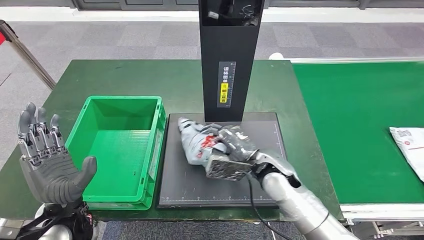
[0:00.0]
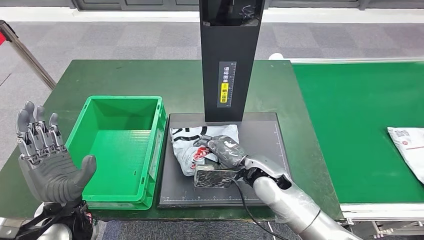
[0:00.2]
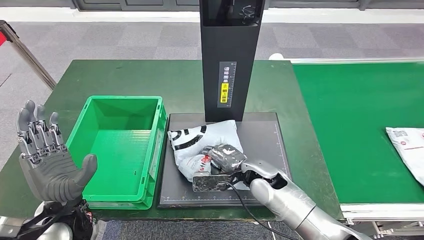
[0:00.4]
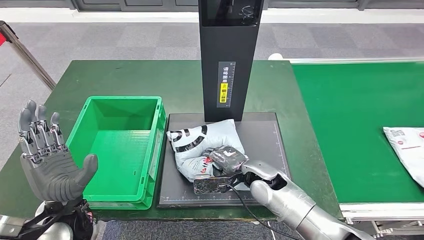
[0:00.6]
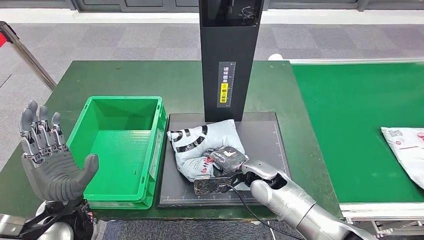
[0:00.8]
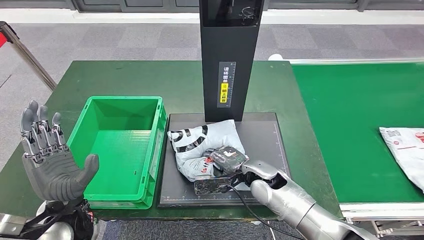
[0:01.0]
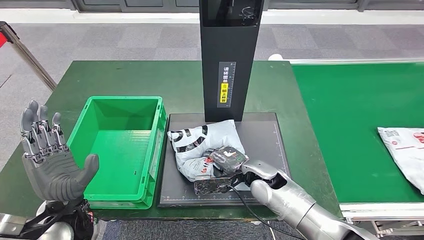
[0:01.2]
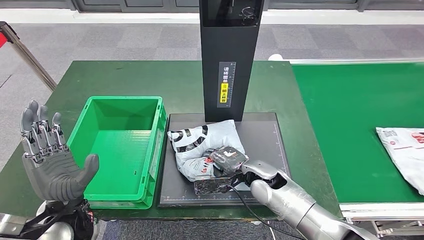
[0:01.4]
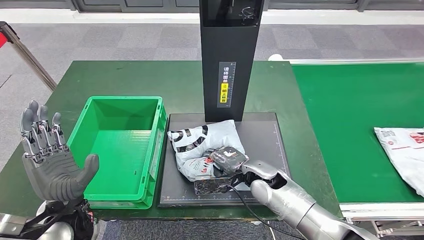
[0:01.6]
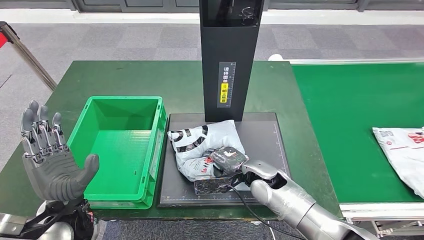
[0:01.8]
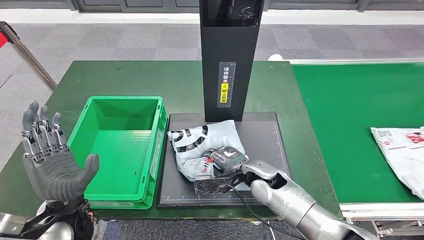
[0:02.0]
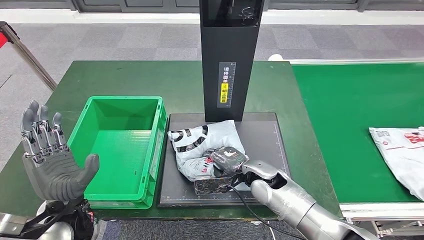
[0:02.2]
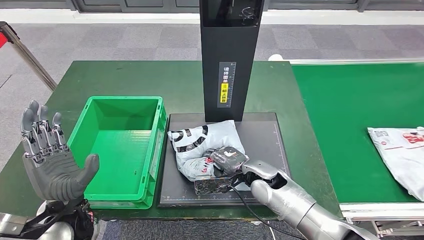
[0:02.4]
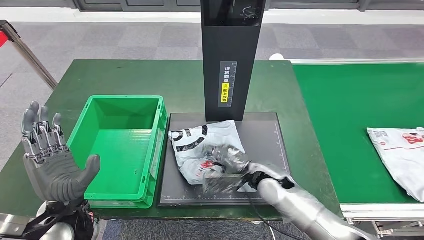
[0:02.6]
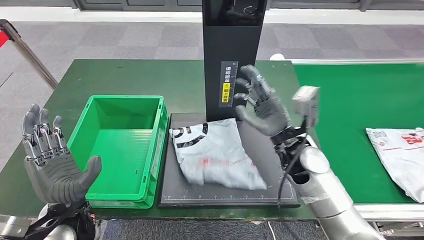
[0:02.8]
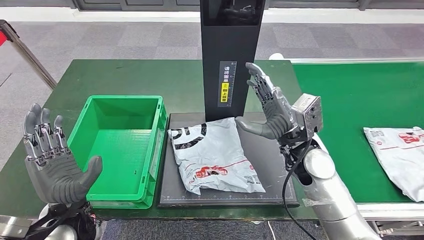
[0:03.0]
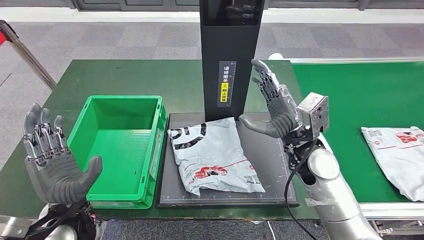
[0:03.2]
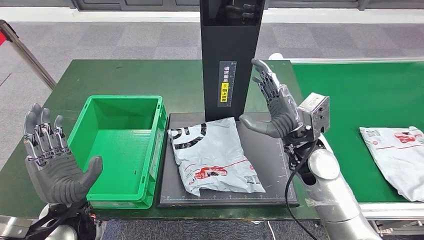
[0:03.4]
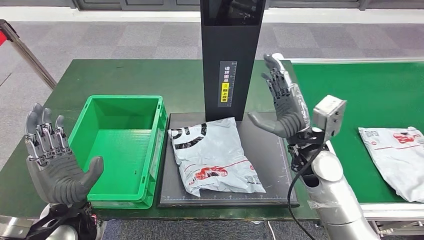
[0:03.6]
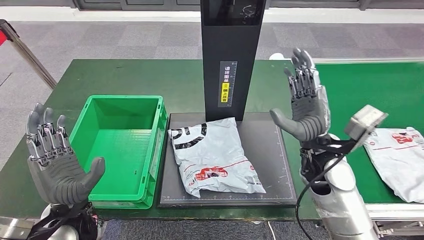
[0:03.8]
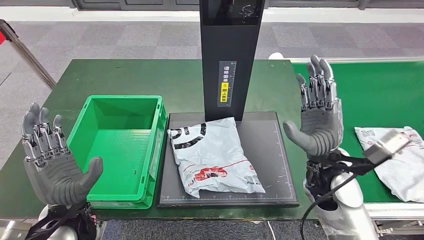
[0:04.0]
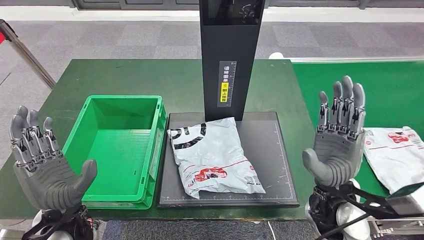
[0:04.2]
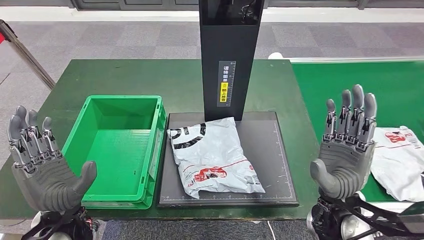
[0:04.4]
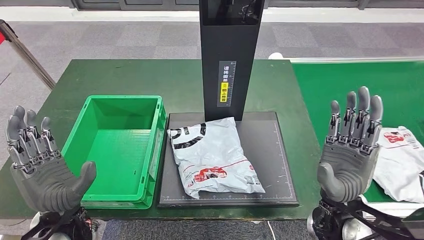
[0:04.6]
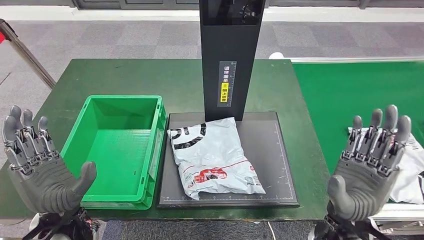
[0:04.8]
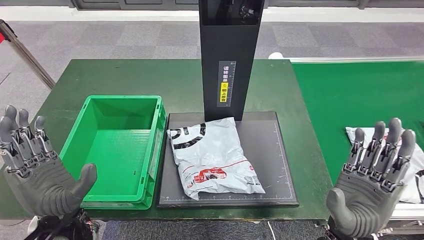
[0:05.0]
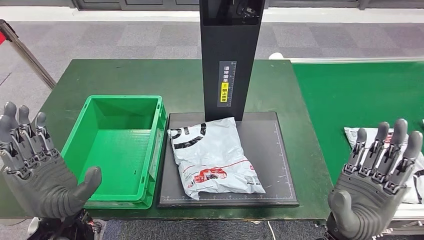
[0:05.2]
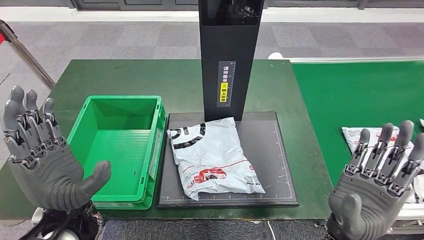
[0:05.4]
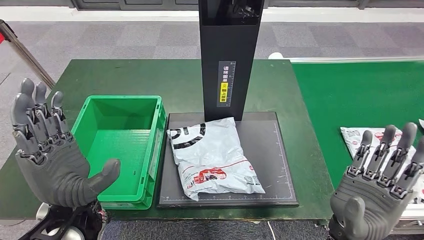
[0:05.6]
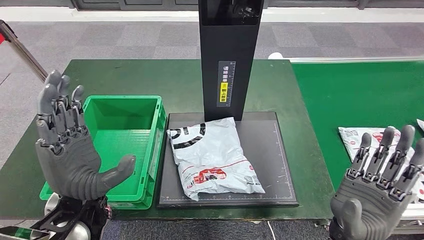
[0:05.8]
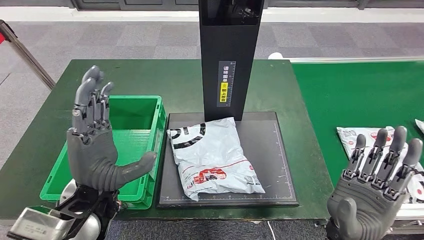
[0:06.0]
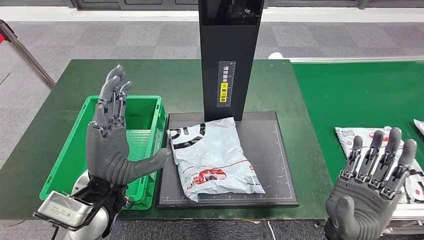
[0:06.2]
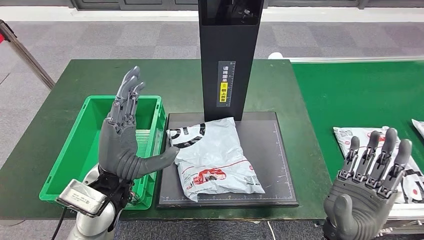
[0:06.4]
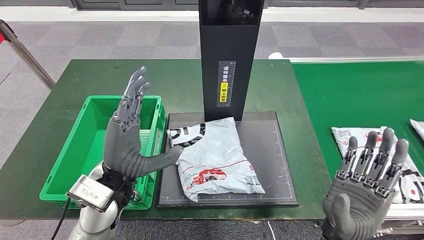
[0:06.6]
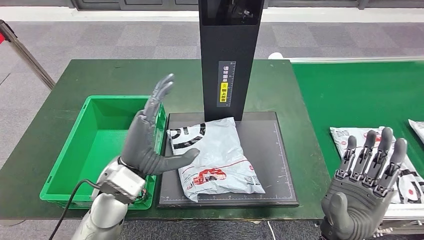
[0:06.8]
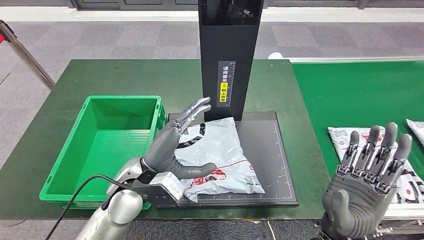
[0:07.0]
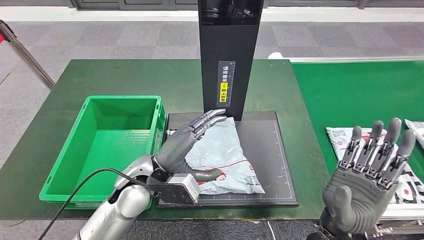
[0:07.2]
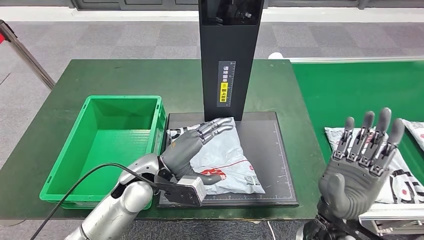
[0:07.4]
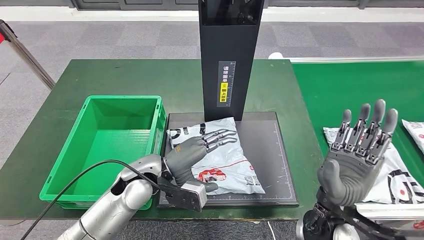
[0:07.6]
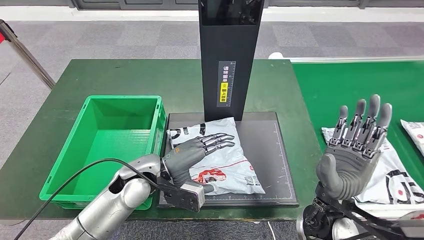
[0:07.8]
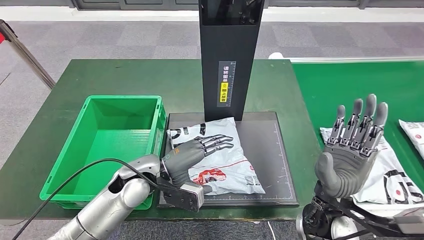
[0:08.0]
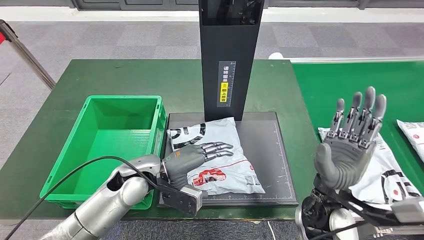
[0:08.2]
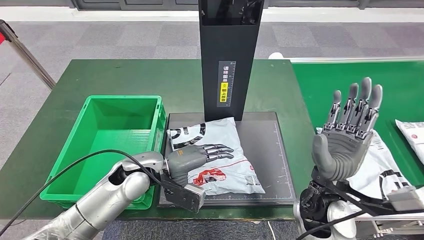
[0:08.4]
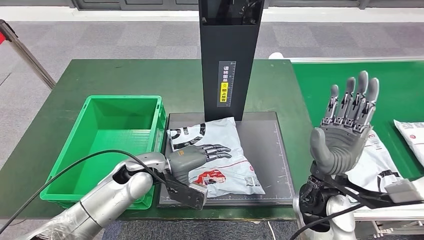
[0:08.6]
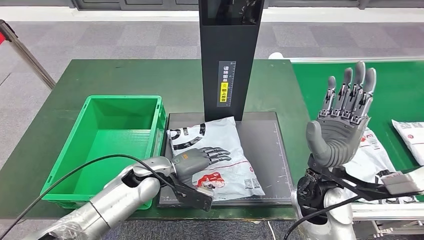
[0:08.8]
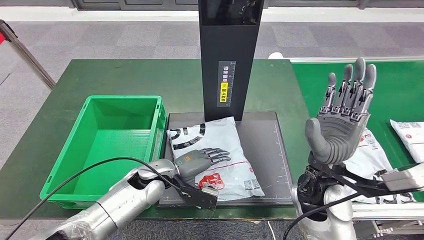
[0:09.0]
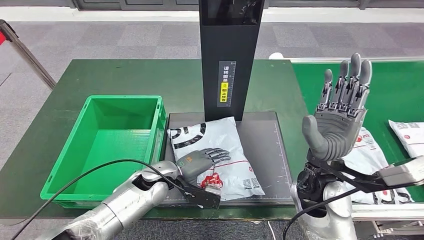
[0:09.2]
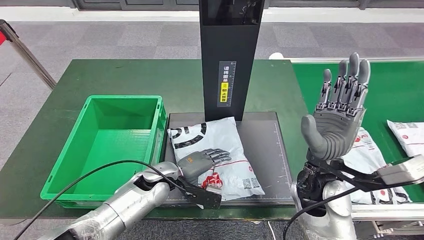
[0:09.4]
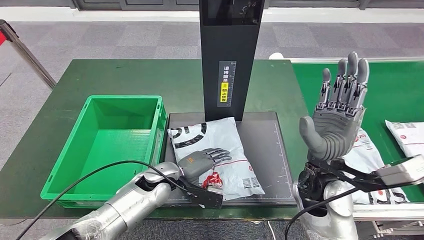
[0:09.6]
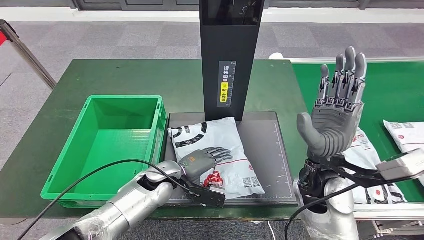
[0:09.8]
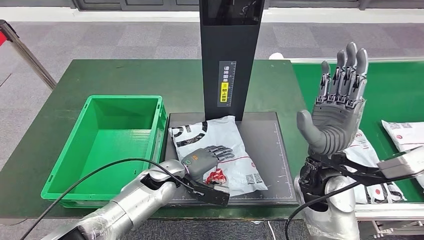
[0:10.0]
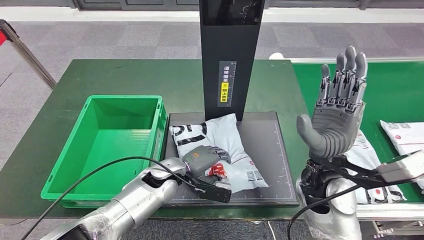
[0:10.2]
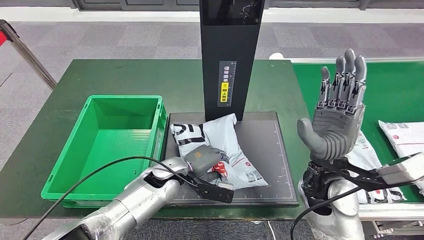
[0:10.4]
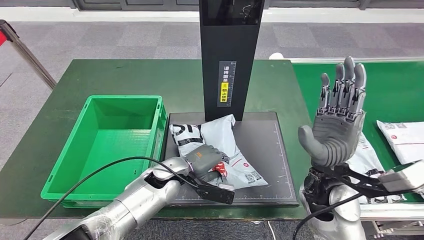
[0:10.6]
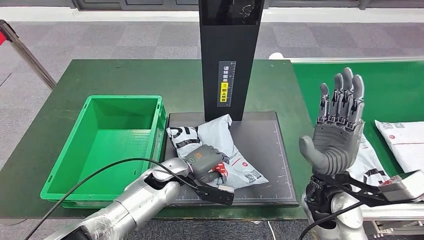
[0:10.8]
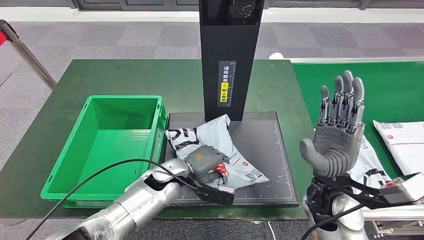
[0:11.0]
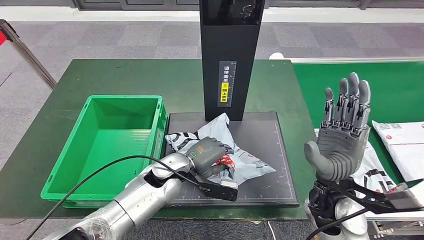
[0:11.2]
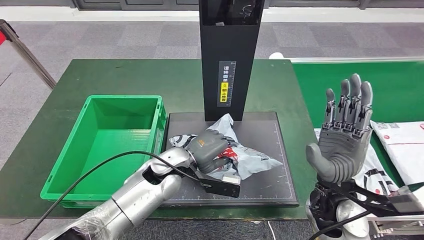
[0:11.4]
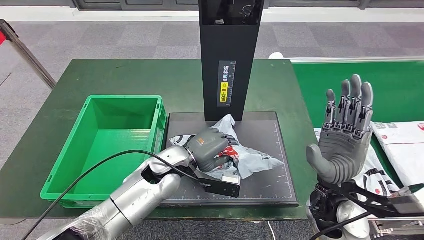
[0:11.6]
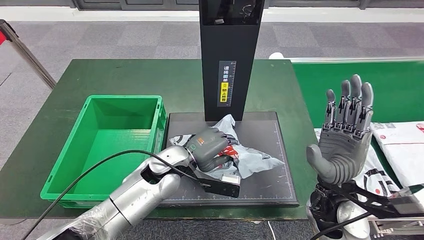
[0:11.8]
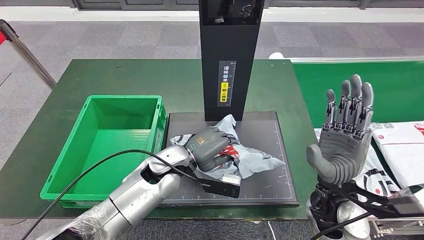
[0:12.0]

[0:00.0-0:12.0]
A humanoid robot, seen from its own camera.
Step, 0:00.2 to 0:03.4: Place the parcel onto the inbound machine.
0:00.0 to 0:01.6: The right hand travels downward by some 5 cm.

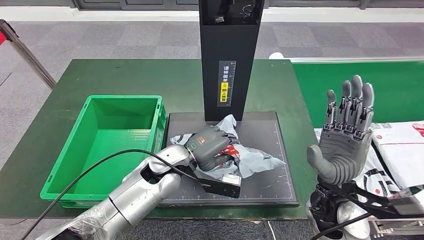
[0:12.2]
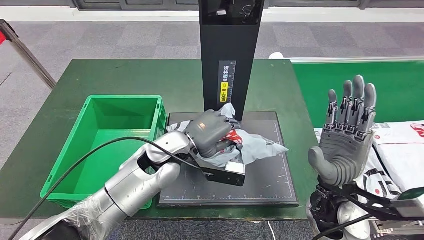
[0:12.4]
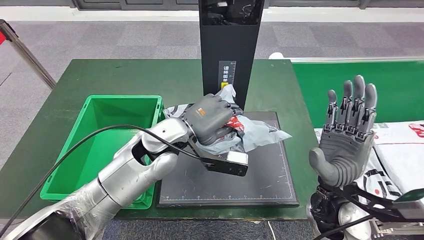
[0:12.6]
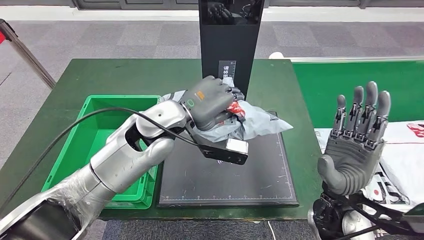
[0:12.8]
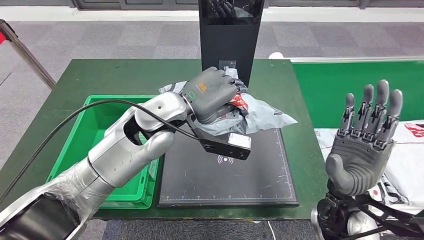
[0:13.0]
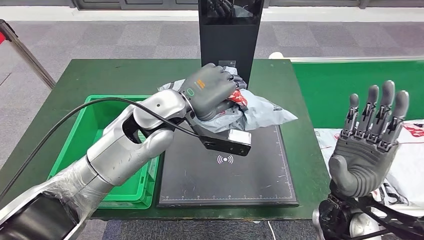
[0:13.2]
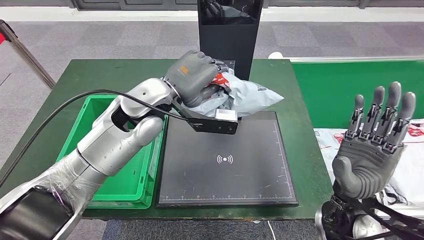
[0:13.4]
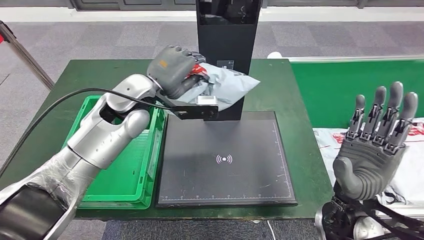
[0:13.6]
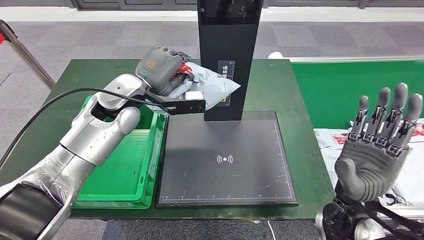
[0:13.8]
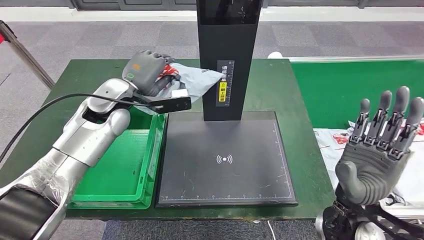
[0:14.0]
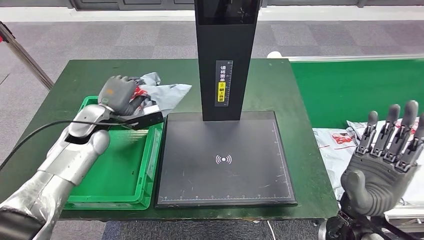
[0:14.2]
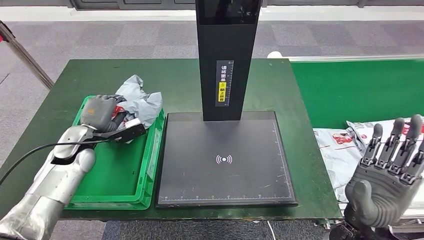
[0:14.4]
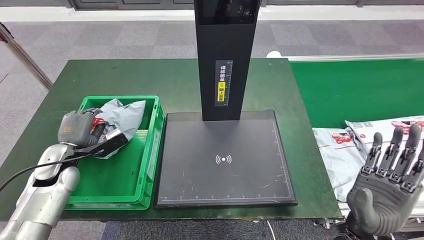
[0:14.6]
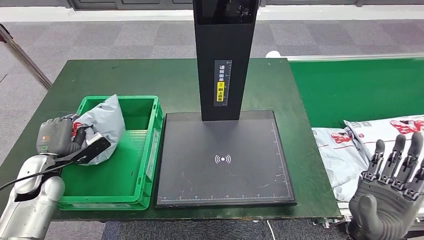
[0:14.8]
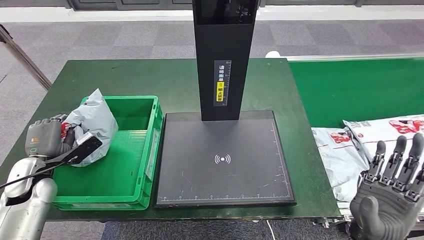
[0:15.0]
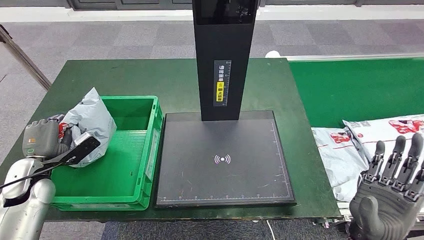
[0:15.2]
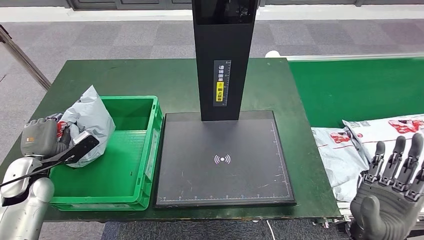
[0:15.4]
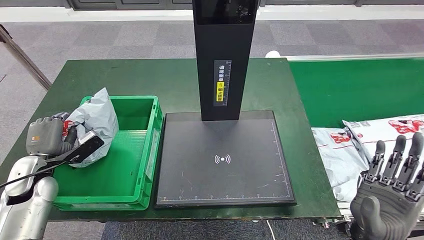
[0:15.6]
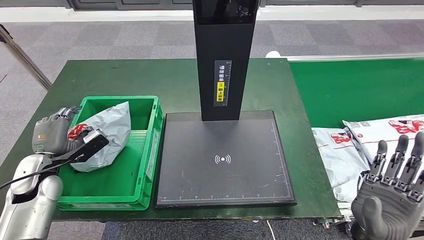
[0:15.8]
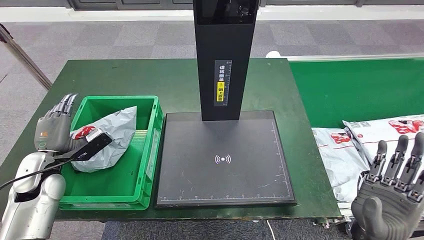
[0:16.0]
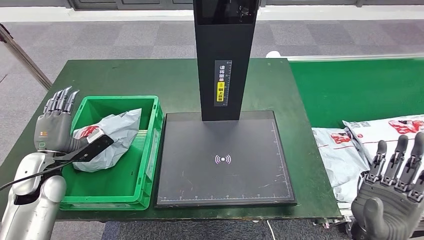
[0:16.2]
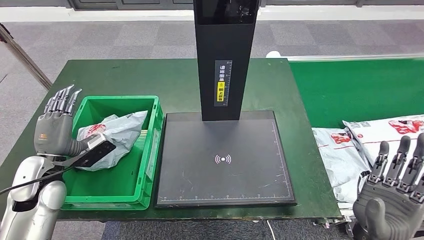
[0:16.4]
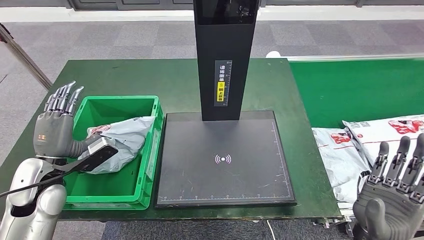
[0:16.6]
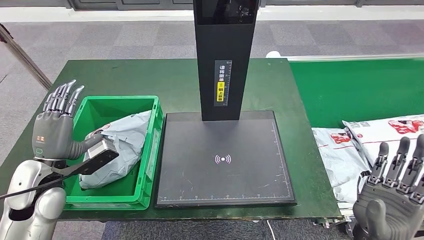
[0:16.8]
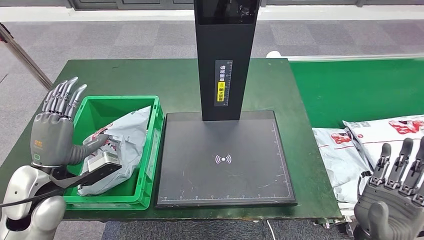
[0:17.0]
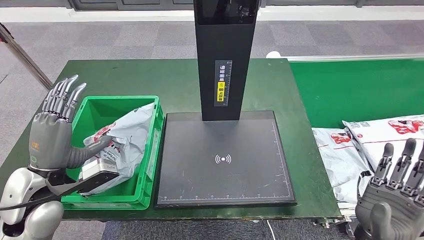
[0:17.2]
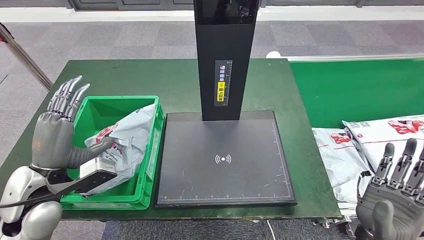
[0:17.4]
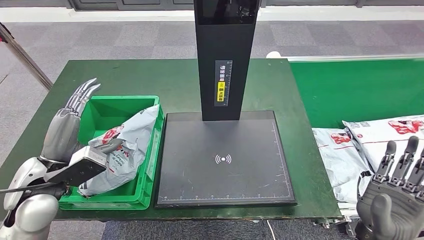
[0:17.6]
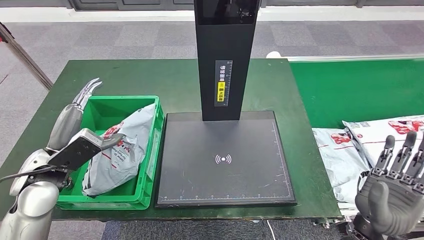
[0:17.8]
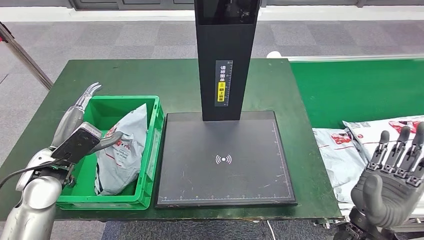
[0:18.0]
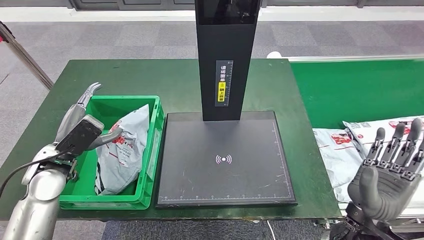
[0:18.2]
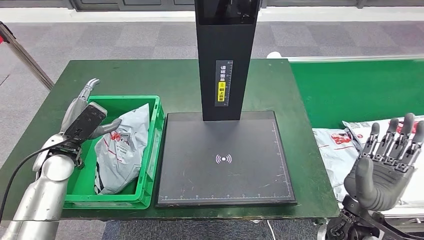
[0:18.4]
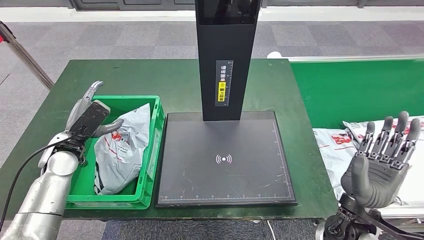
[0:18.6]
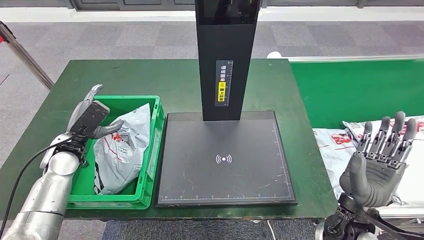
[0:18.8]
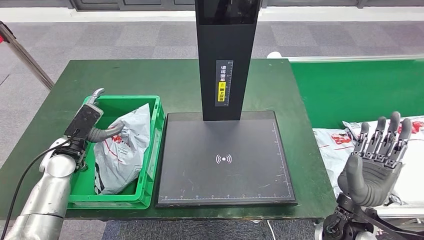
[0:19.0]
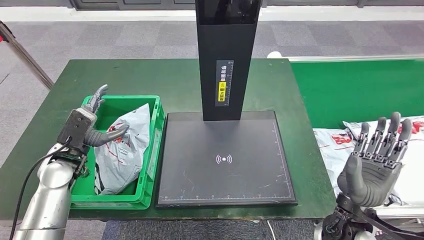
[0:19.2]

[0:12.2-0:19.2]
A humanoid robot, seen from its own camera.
Step, 0:13.0 to 0:16.4: Put the parcel inside the courier box.
0:15.0 to 0:16.4: The left hand shifts approximately 5 cm to the right.
0:16.4 to 0:17.8: The left hand shifts approximately 5 cm upward.
0:17.8 to 0:19.2: The left hand goes roughly 5 cm downward.
